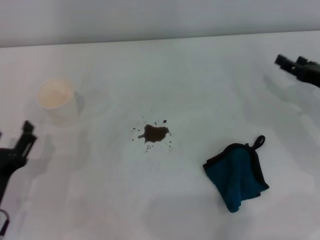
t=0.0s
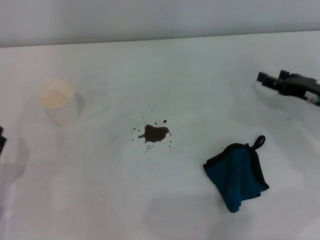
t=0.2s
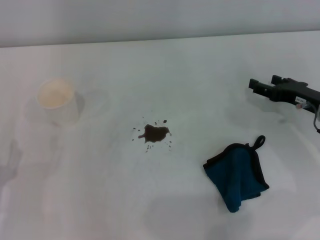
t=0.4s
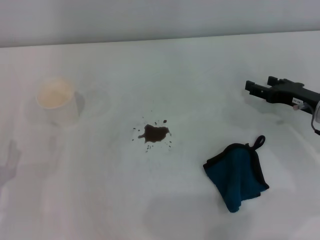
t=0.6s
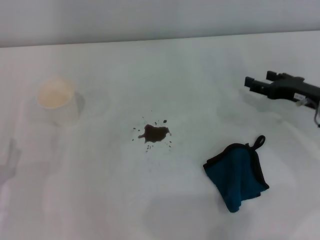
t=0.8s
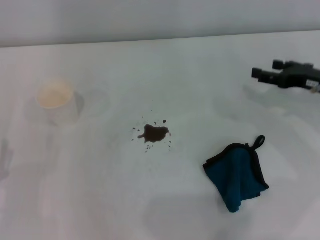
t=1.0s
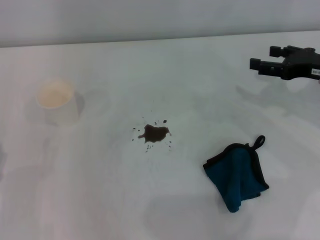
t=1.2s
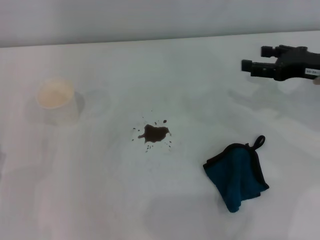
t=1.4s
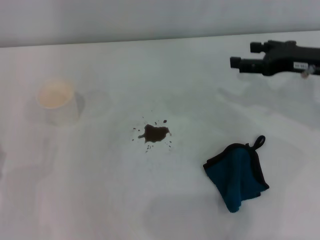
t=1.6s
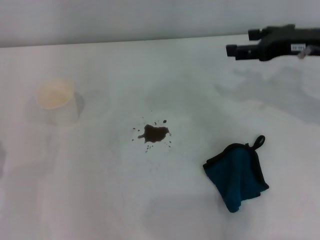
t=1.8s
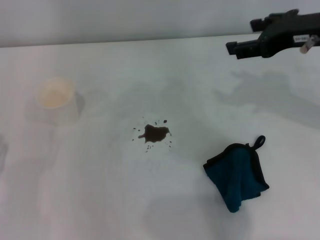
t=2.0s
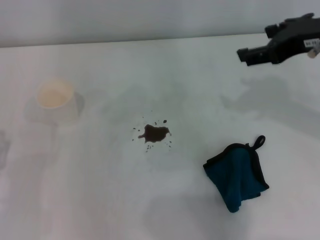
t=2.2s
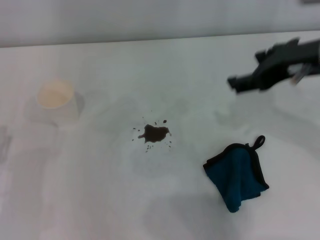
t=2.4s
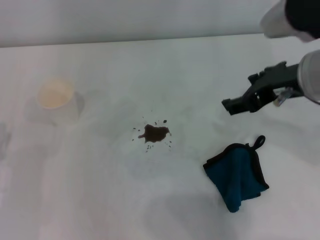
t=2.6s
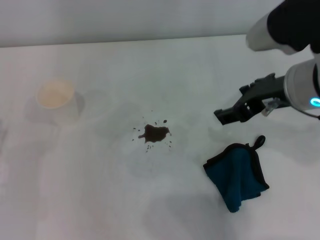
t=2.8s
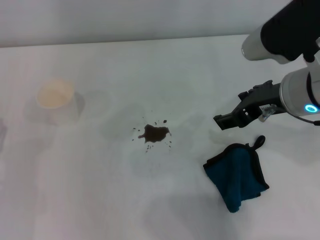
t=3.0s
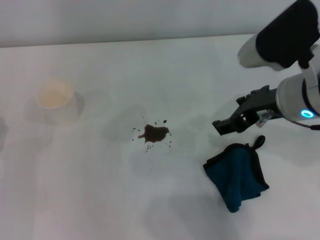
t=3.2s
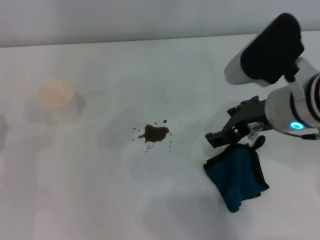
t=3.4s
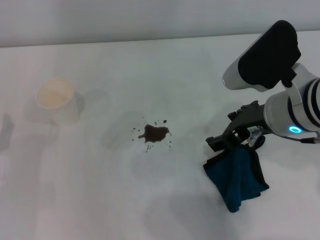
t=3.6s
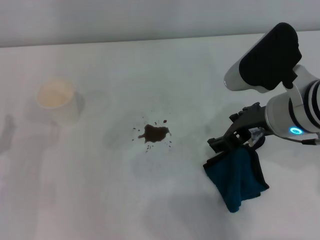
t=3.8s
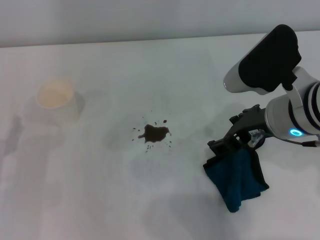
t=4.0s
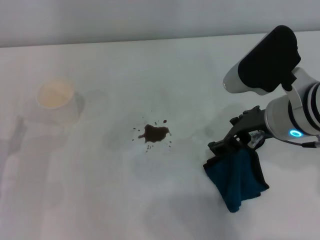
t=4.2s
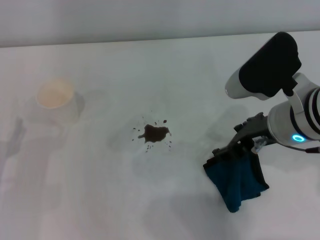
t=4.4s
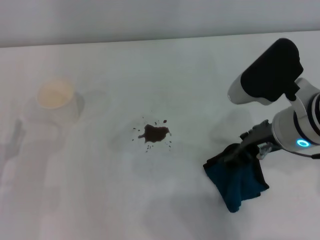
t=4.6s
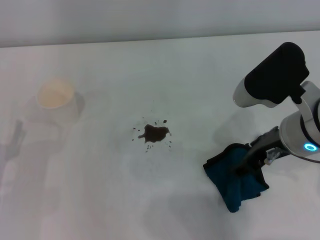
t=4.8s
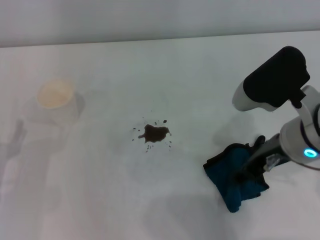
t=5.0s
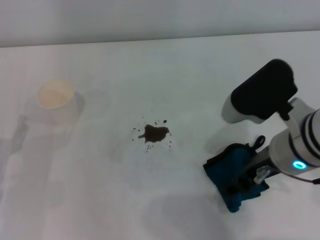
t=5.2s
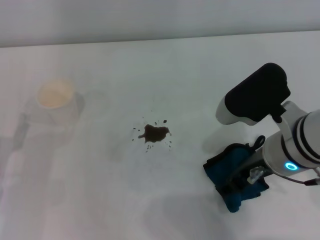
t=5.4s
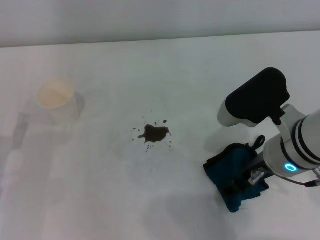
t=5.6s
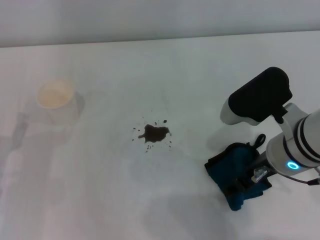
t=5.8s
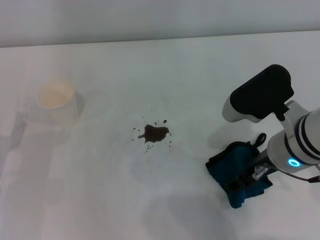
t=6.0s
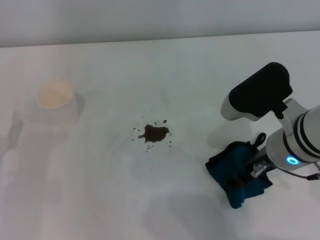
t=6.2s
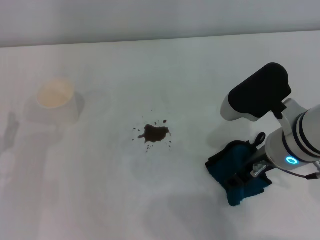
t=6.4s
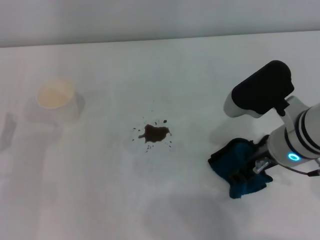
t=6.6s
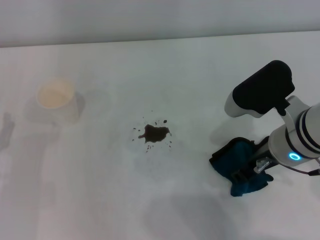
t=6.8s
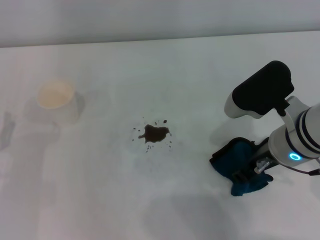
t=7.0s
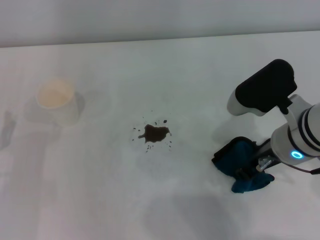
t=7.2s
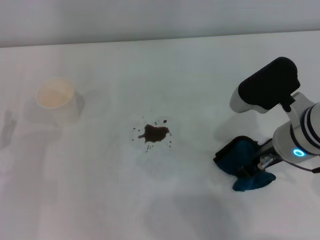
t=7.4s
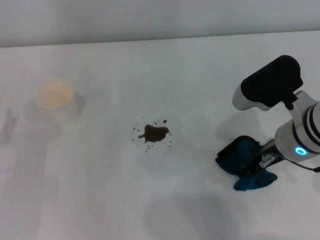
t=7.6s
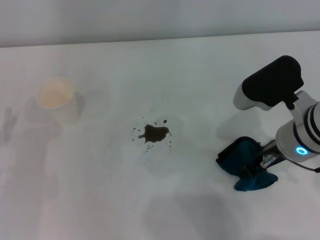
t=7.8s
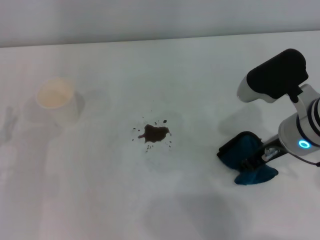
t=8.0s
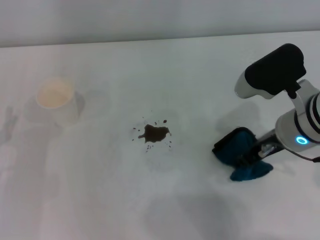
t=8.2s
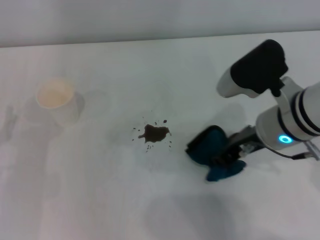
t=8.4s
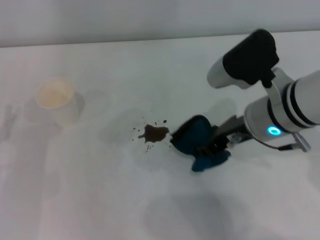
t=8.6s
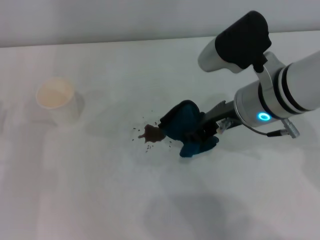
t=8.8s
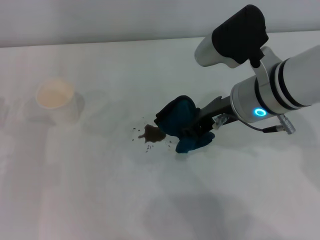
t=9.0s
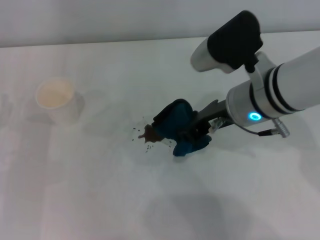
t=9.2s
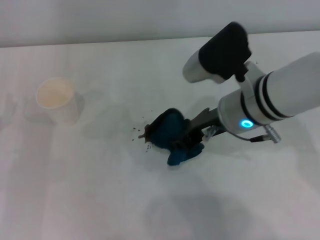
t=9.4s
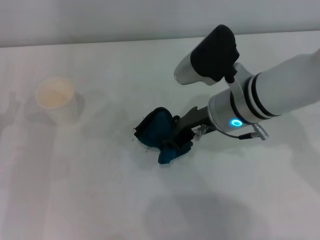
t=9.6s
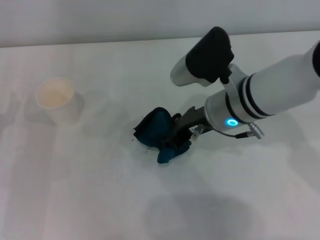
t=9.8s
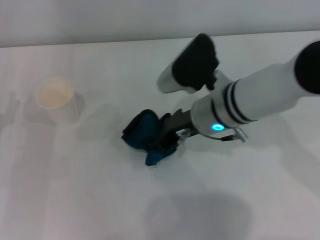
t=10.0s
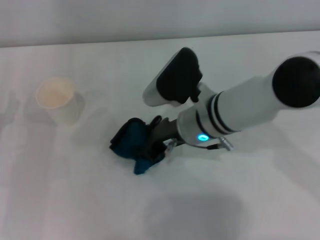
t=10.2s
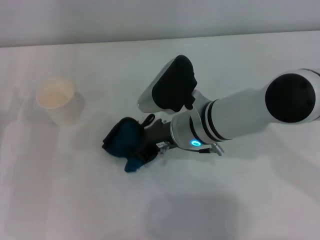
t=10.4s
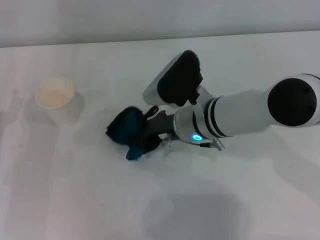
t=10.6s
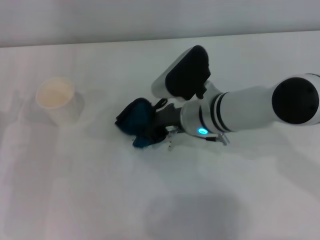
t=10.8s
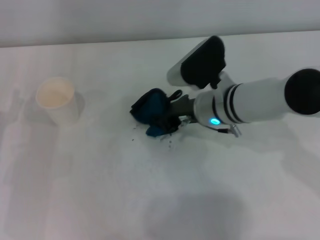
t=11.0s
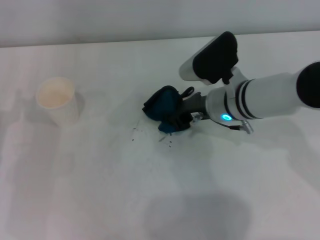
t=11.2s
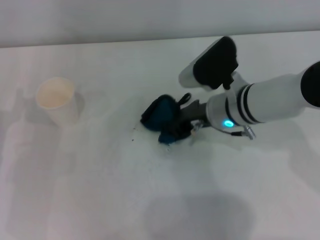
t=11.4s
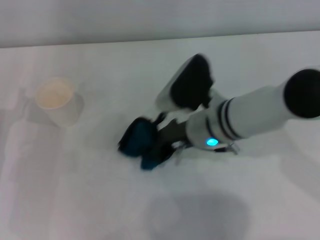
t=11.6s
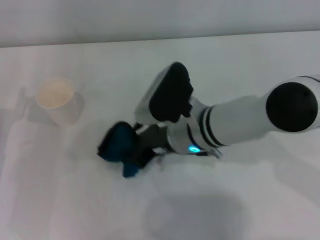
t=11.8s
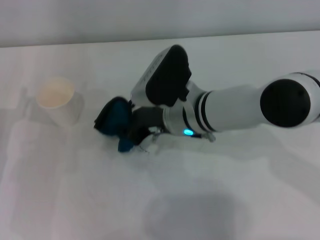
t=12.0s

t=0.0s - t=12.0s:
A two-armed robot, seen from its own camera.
Step, t=0.0s - t=5.8s: Grasp the rag with the right gripper.
t=0.0s - t=1.6s: The left gripper ends up about 5 cm from where it was, while the right gripper heads upward and to the left, covering about 10 cm.
t=1.6s - t=3.0s: The right gripper shifts approximately 10 cm to the left.
t=3.0s - t=4.4s: The grippers stay close to where they were, moving slightly.
t=4.4s - t=6.0s: The grippers move only a little.
t=6.0s - t=7.6s: The right gripper closes.
t=7.6s - t=9.0s: The right gripper changes place by roughly 5 cm.
t=9.0s - t=10.4s: The right gripper heads downward and to the left, covering approximately 10 cm.

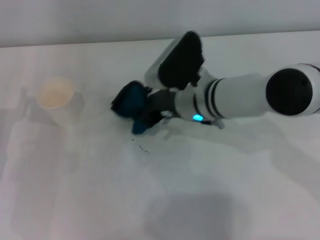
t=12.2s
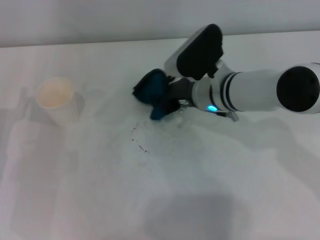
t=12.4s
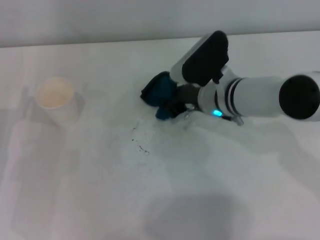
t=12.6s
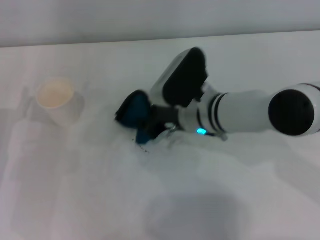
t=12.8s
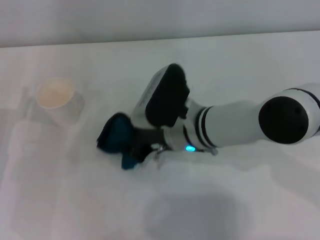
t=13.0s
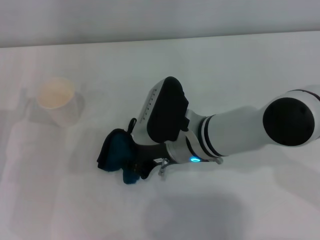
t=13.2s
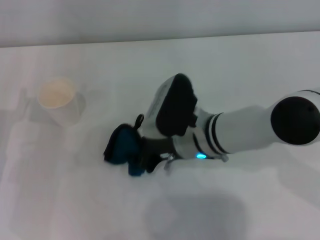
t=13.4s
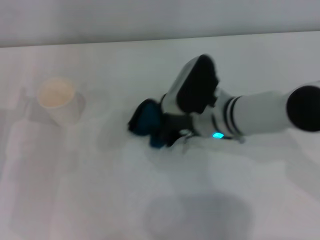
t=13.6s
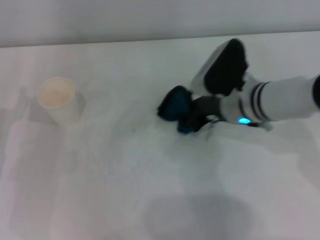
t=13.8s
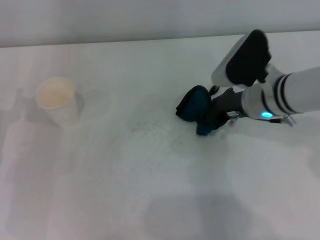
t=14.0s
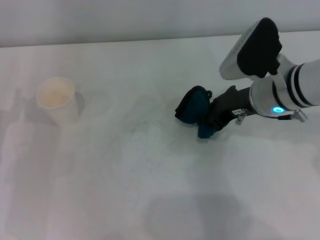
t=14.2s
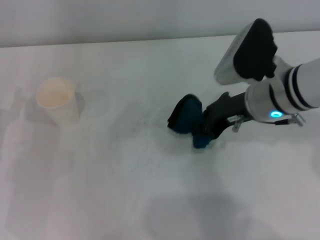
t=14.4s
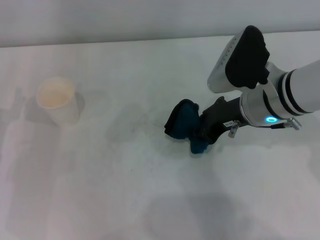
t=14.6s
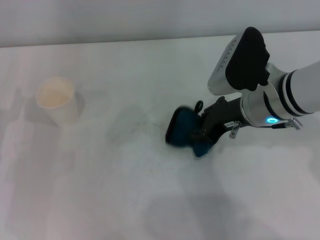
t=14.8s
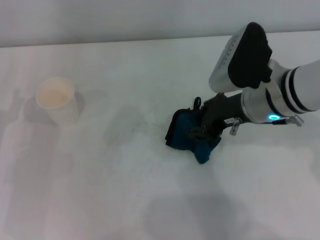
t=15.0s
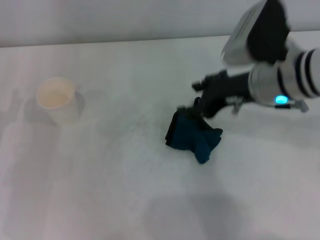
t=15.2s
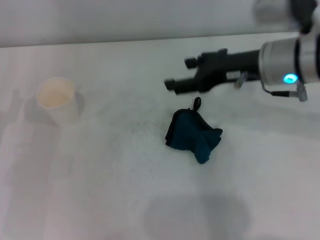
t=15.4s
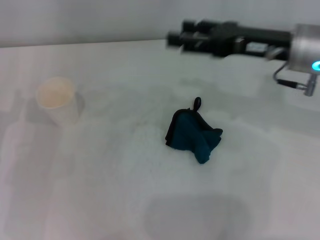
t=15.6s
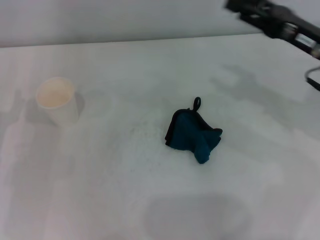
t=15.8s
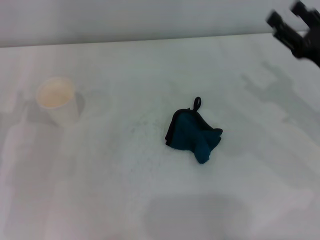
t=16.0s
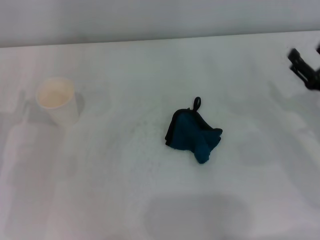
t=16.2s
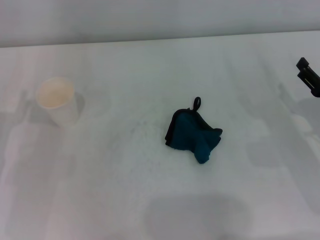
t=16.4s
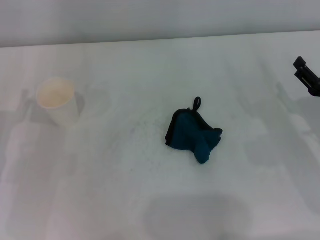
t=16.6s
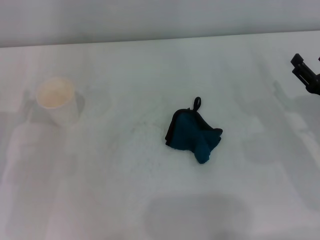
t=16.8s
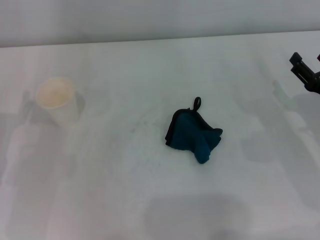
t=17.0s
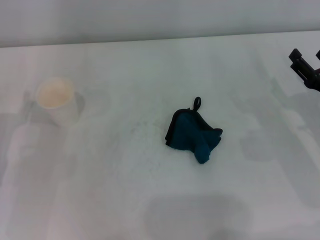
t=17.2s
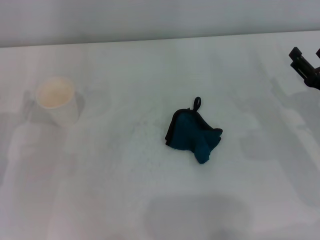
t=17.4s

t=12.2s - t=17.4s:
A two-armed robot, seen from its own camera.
Step, t=13.8s - t=14.8s: Place the rag on the table with the right gripper.
t=12.2s - t=14.0s: The right gripper is displaced to the right by about 10 cm.
t=14.0s - t=15.6s: The right gripper shifts about 10 cm upward, and opens its fingers.
t=15.6s - t=17.4s: The right gripper shifts approximately 20 cm downward, to the right and backward.

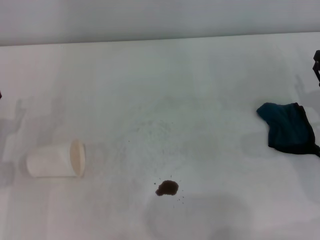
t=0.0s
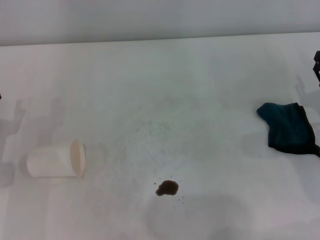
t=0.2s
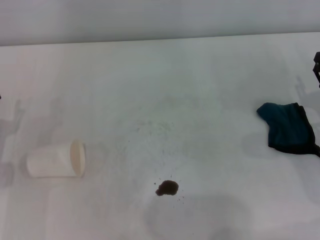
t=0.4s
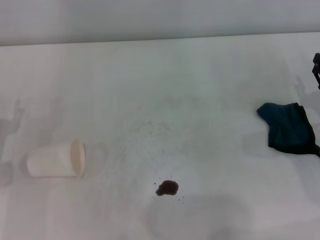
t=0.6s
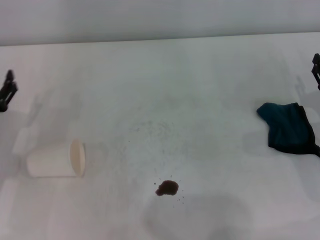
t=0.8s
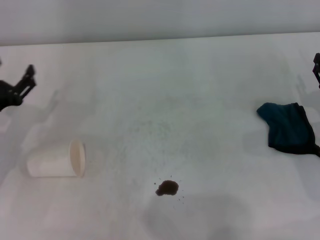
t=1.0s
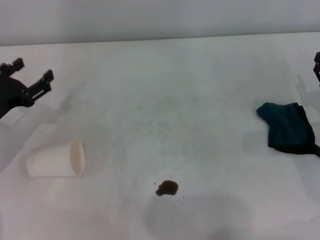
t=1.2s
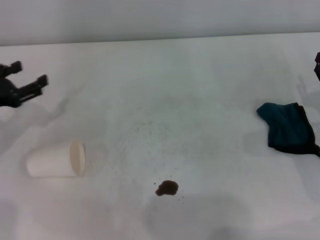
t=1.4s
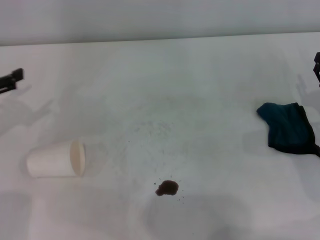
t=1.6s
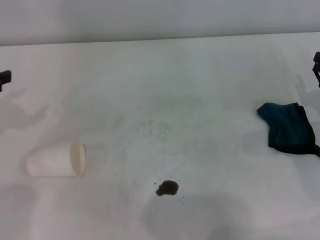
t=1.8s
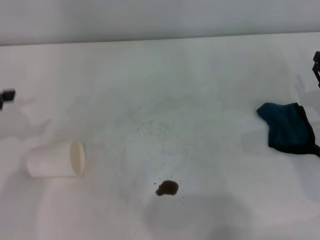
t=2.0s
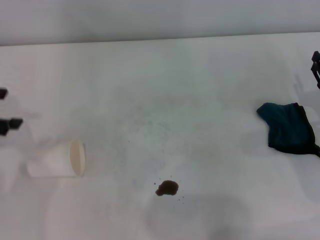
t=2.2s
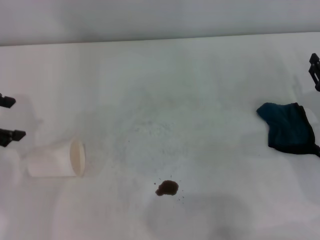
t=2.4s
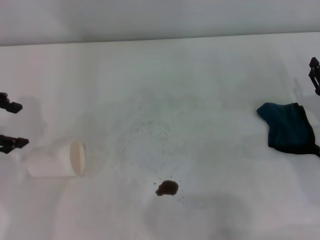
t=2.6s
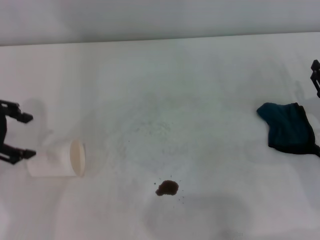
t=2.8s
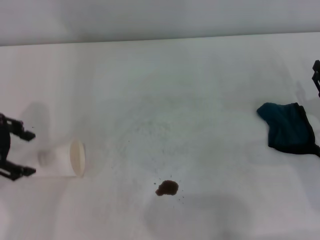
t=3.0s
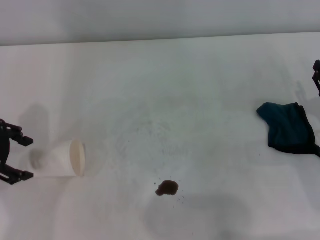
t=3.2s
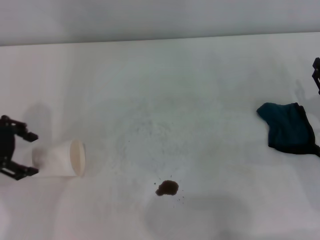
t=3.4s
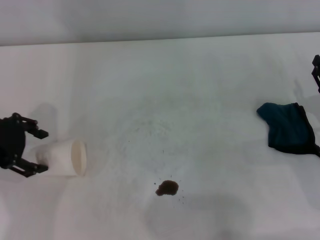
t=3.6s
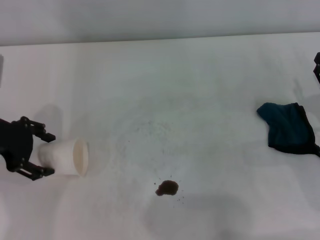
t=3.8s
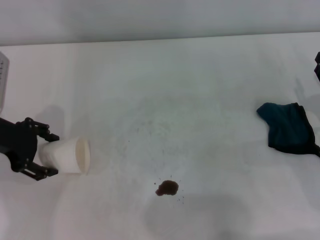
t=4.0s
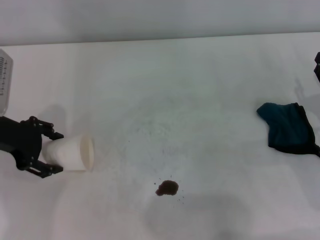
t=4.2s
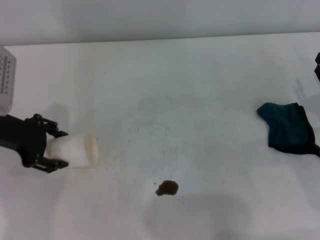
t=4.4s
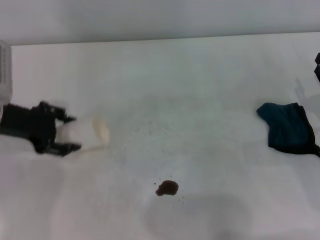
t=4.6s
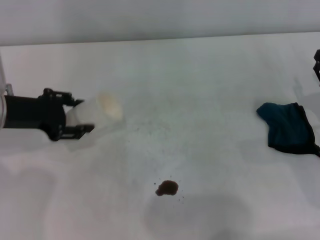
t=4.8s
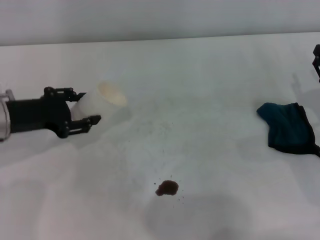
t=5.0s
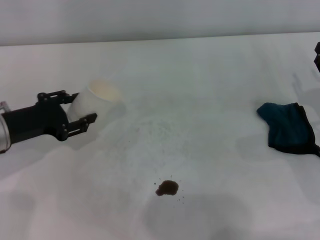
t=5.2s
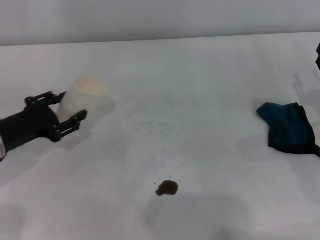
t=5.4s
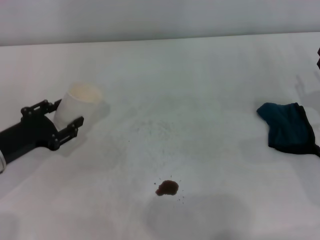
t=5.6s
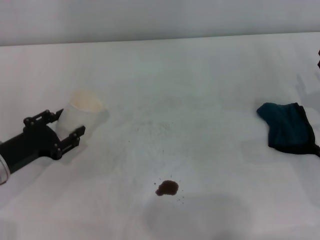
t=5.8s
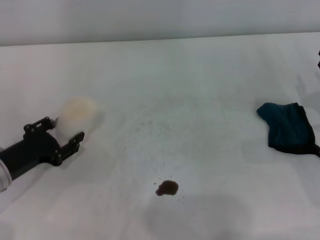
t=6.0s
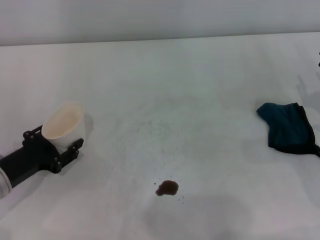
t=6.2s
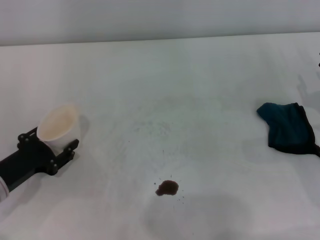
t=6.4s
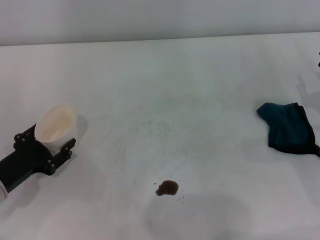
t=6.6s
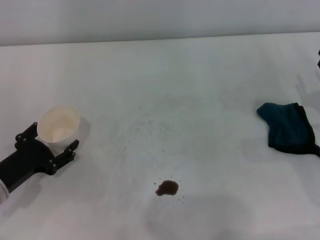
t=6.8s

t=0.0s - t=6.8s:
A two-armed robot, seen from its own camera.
Step, t=0.0s - t=4.2s: Grasp the paper cup with the left gripper.
t=0.0s - t=1.4s: The left gripper heads forward and upward, covering roughly 10 cm.
t=1.4s - t=2.8s: The left gripper heads upward, covering roughly 10 cm.
t=2.8s - t=4.0s: The left gripper travels downward by about 5 cm.
t=4.0s - t=5.4s: The left gripper is displaced downward by about 10 cm, and closes.
t=5.4s - t=6.8s: The left gripper goes roughly 10 cm backward and downward.
